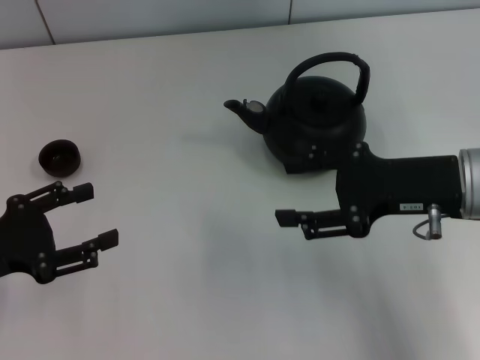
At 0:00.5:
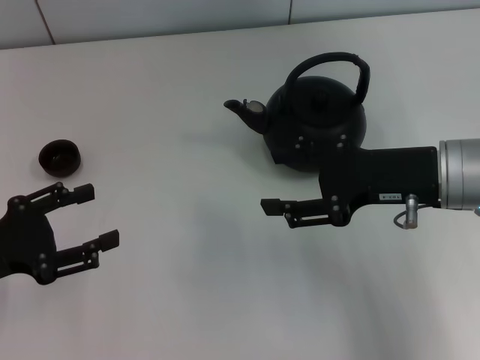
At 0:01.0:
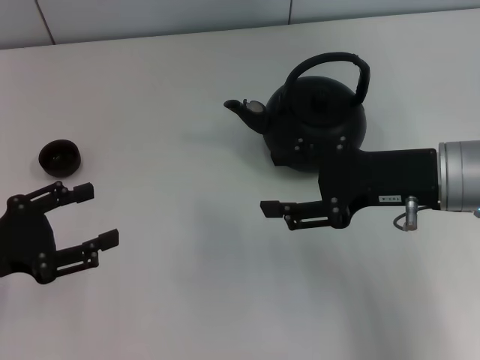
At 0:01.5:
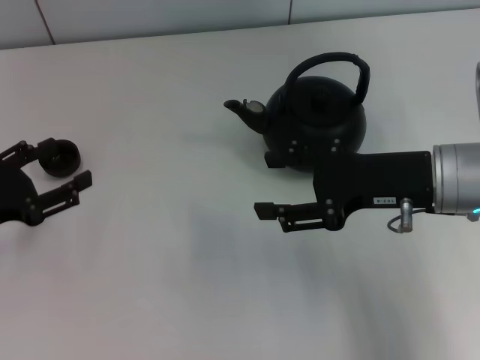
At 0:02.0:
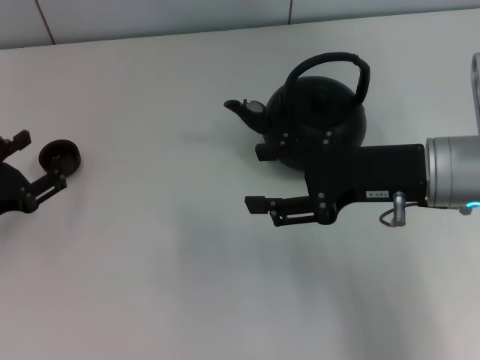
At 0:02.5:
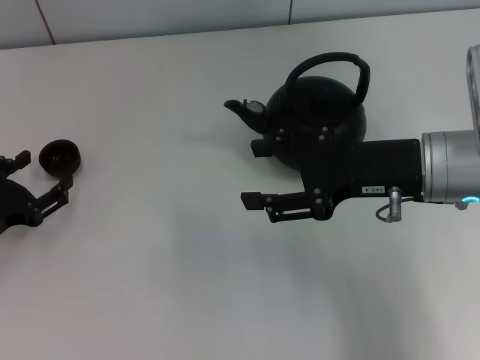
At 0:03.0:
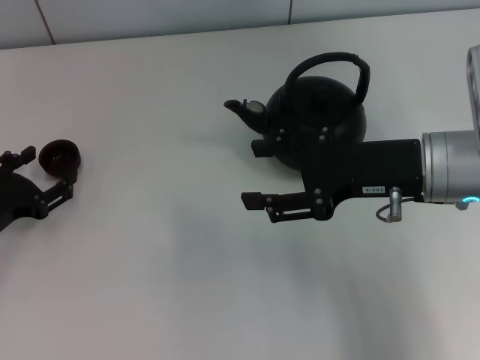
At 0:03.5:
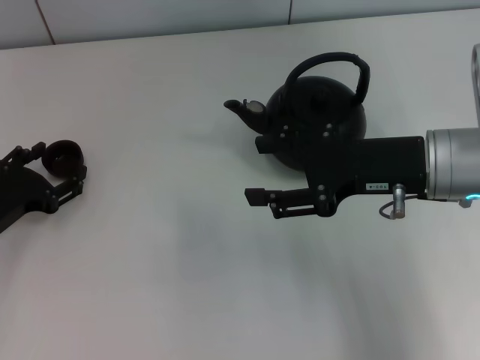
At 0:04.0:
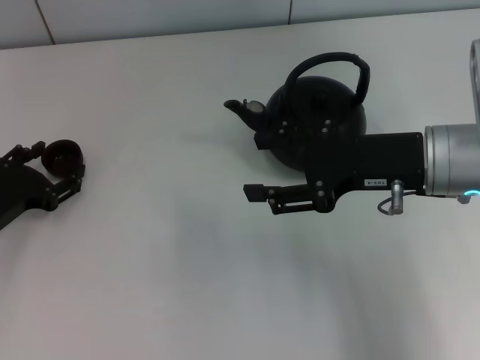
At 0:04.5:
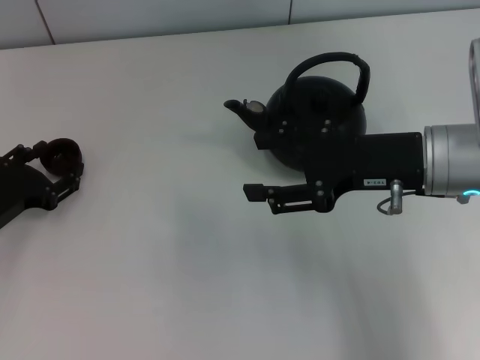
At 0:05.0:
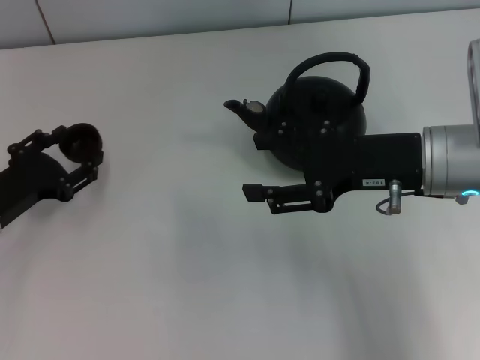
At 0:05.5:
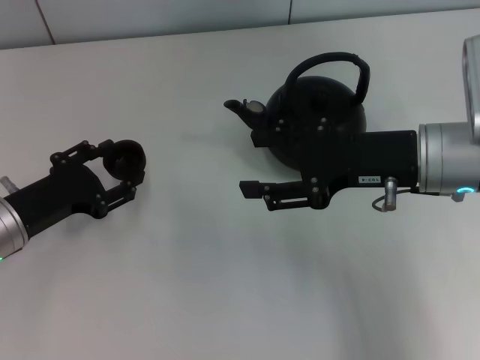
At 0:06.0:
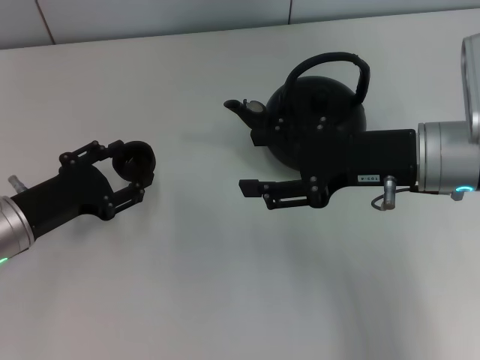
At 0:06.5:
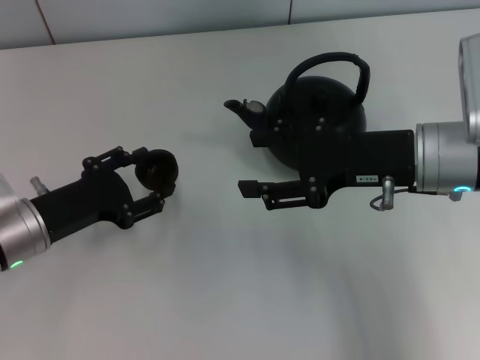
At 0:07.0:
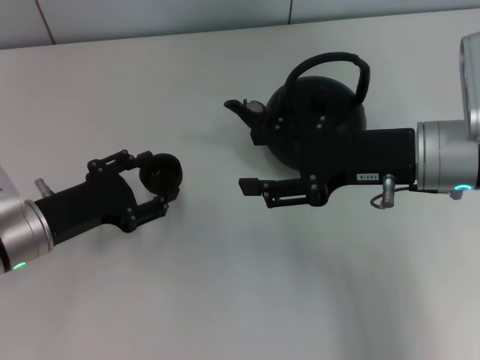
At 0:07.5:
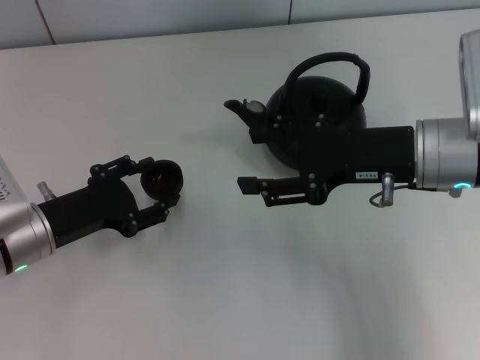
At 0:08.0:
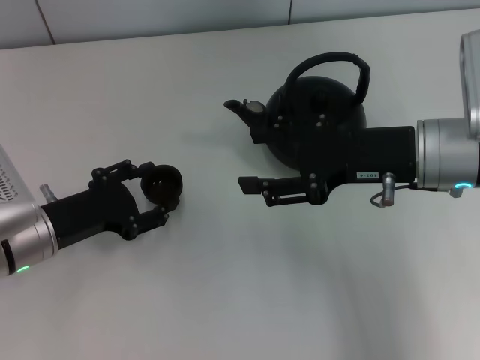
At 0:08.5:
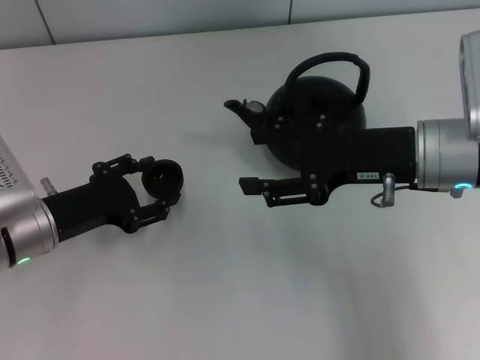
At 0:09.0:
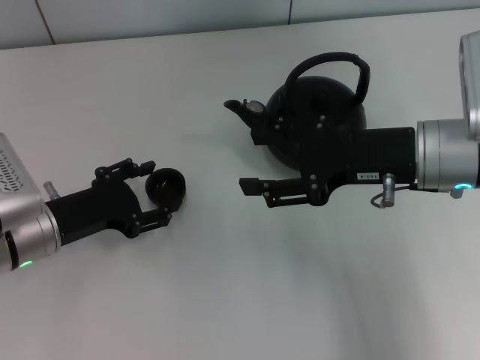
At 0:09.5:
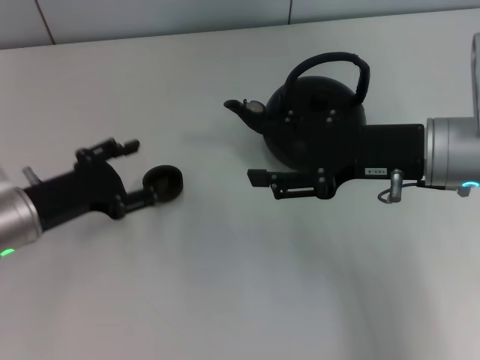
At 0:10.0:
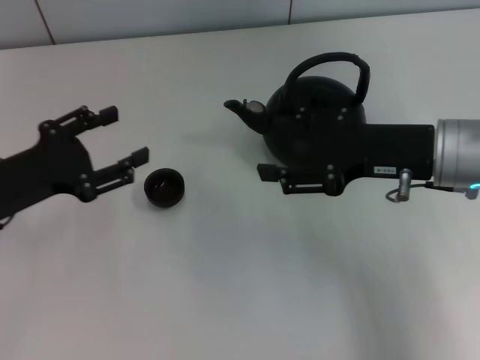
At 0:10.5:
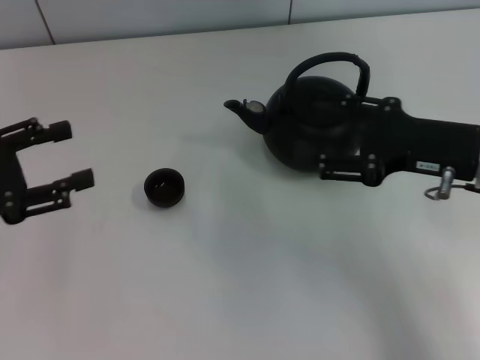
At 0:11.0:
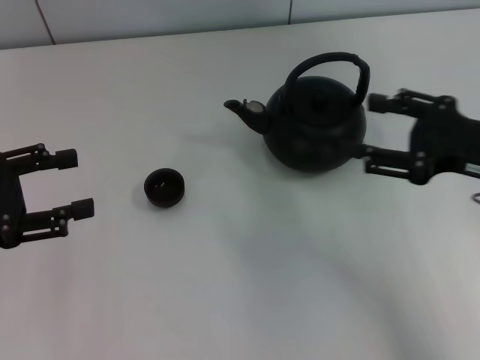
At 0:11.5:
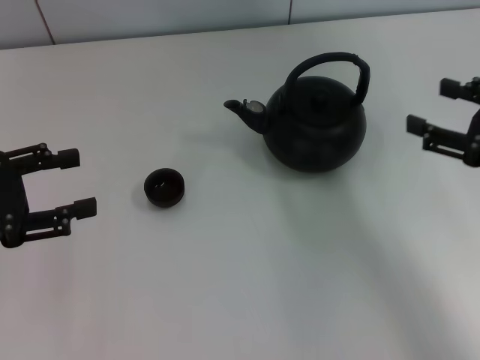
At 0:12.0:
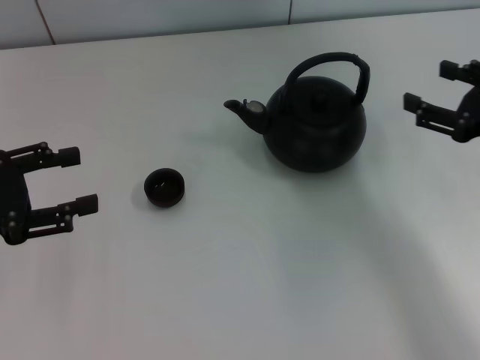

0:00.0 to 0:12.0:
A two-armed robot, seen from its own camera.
Task of the whole recording: Grasp the handle of the teapot with one hand and pour tea into the teacup.
Step, 0:00.0 to 0:05.5: Pick up the teacup with the left gripper.
Step, 0:06.0 to 0:10.0: Place the teacup in the center of view with the left gripper.
0:02.0 to 0:04.0: The grippers move only a little.
0:06.0 to 0:08.0: The grippers stay close to where they were, moving slightly.
0:08.0 to 0:10.0: The left gripper shifts roughly 5 cm upward.
0:10.0 to 0:12.0: The left gripper travels to the left by approximately 5 cm, while the right gripper shifts approximately 10 cm to the right.

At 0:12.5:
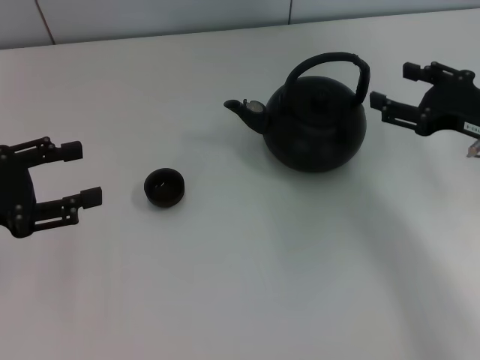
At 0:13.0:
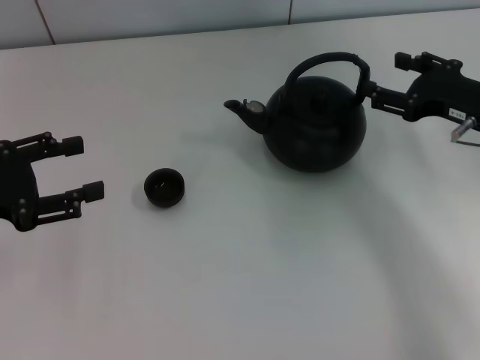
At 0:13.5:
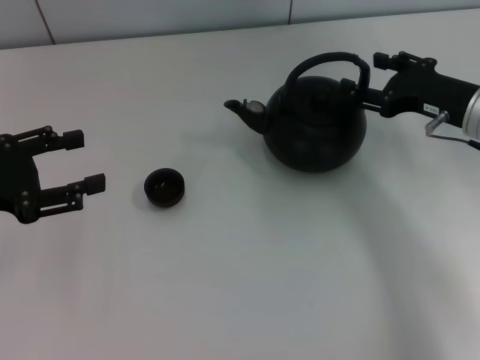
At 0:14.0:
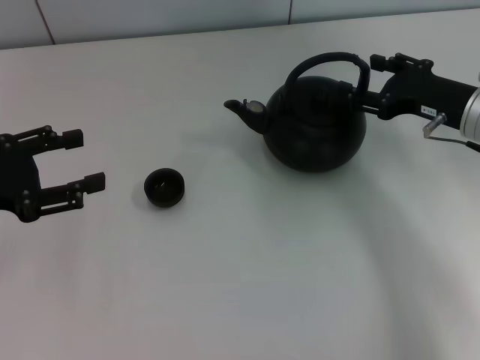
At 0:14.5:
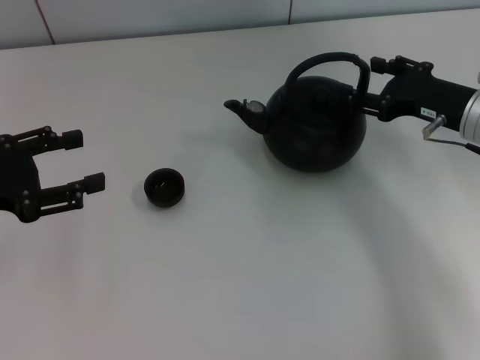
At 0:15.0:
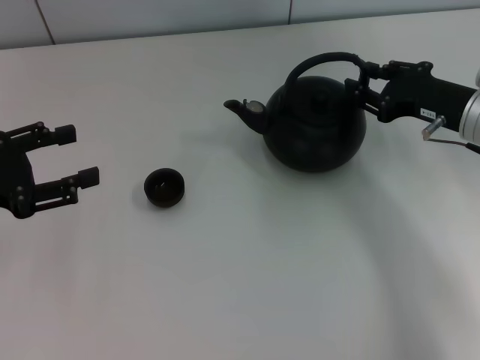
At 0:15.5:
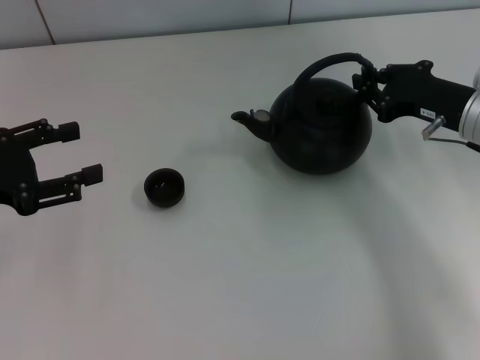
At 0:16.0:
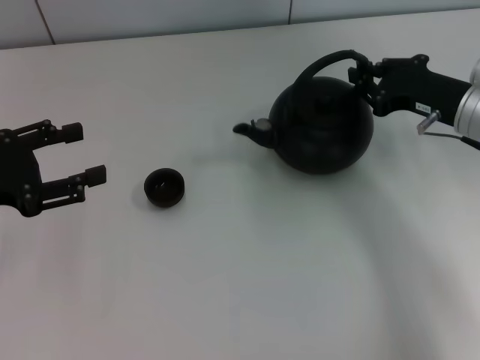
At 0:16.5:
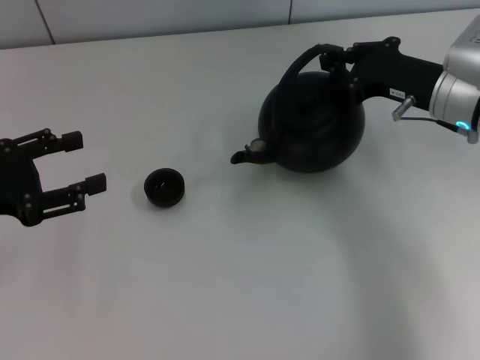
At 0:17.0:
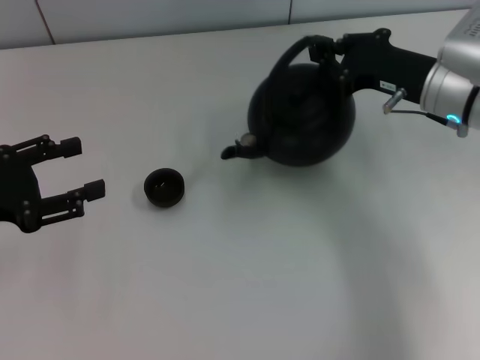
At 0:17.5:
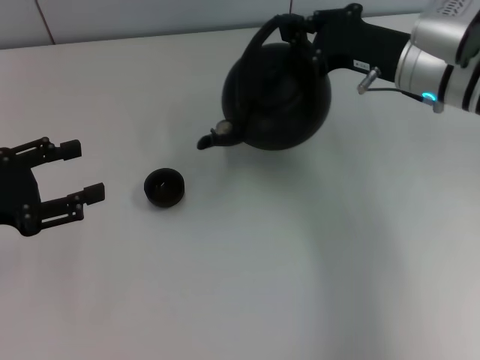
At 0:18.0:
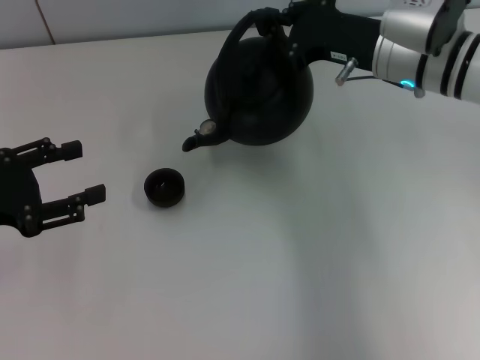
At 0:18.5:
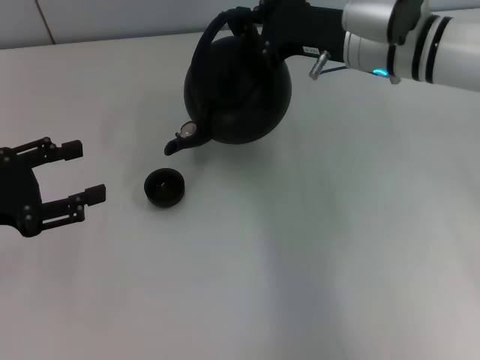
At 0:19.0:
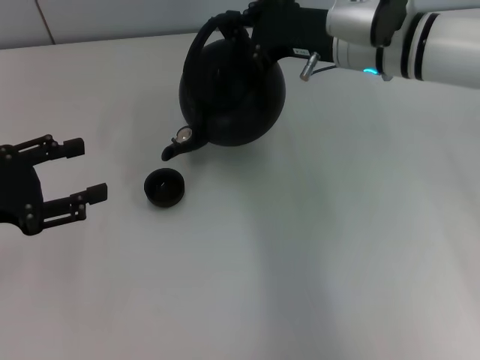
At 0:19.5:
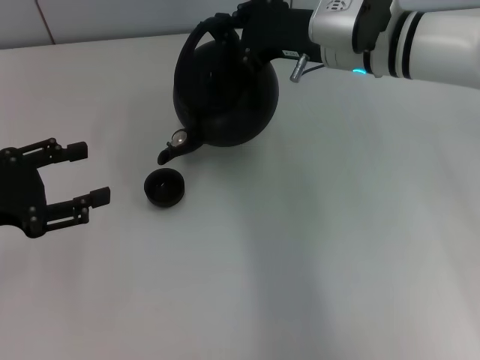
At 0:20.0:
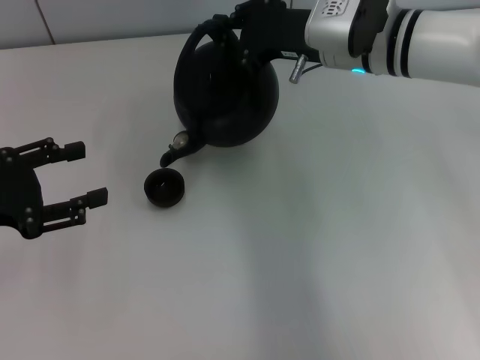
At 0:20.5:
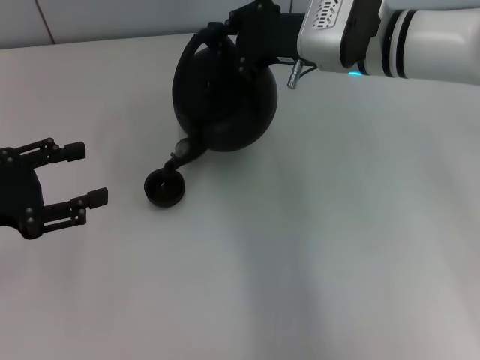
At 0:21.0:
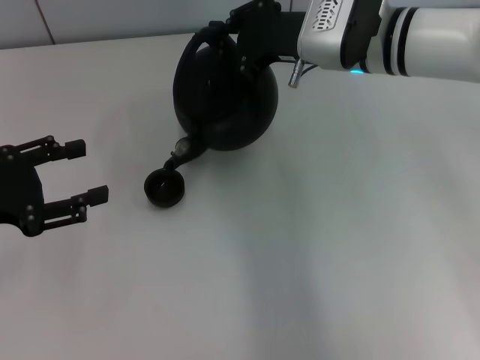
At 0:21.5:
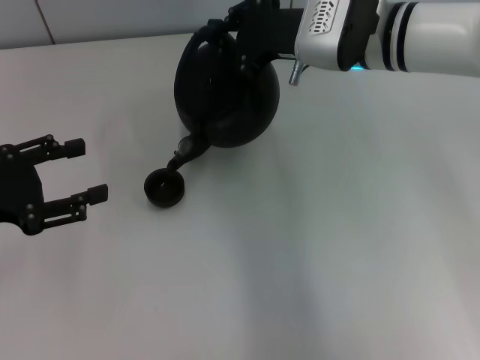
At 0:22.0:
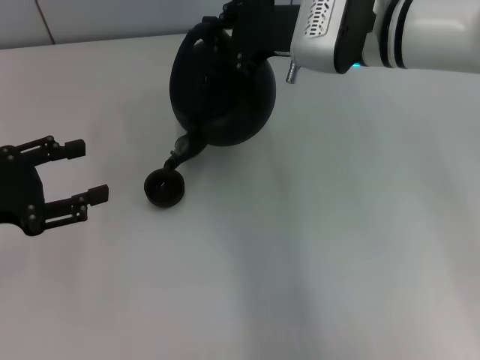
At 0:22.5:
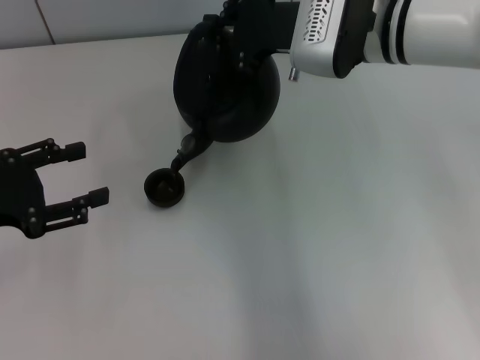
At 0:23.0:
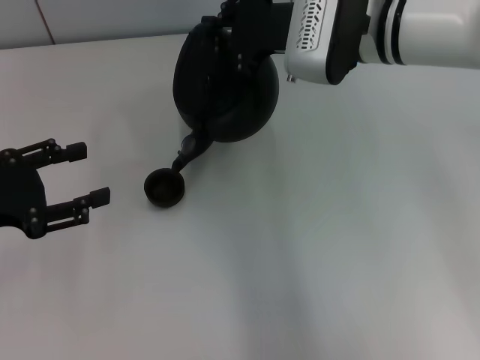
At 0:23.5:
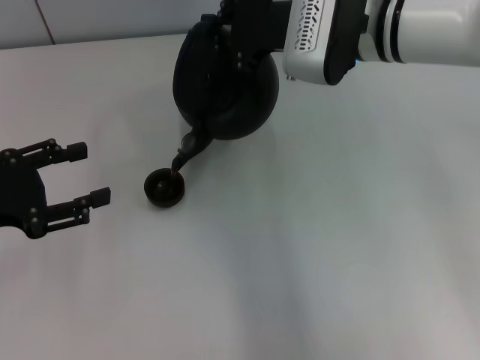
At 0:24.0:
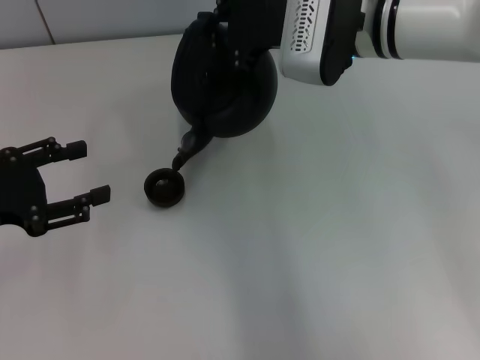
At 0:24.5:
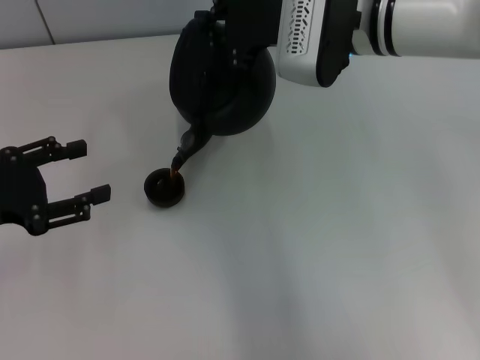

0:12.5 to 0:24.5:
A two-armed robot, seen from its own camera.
Task of the whole recording: Grasp the handle of the teapot with one hand and pour tea into the teacup.
Step, 0:12.5 to 0:16.5: Pick up the teapot with the right gripper.
0:12.5 to 0:14.5: The right gripper moves about 5 cm.
0:14.5 to 0:16.5: The right gripper closes up.
0:16.5 to 0:18.5: The right gripper moves to the left and forward, some 10 cm.
0:18.5 to 0:20.5: The grippers move only a little.
0:20.5 to 0:24.5: The grippers stay close to where they were, moving slightly.

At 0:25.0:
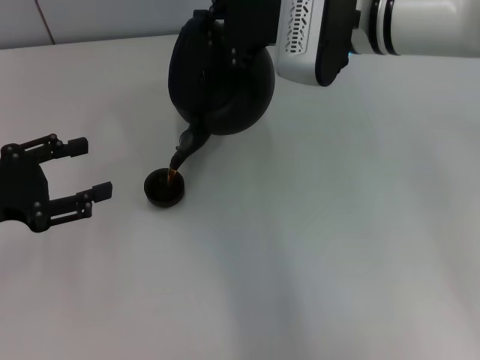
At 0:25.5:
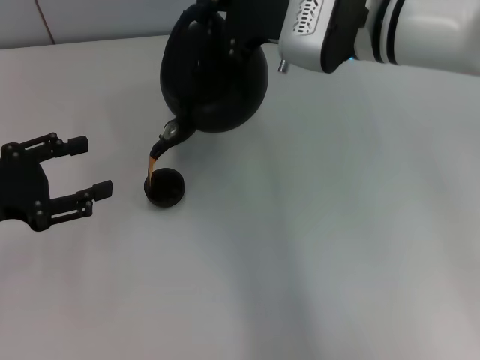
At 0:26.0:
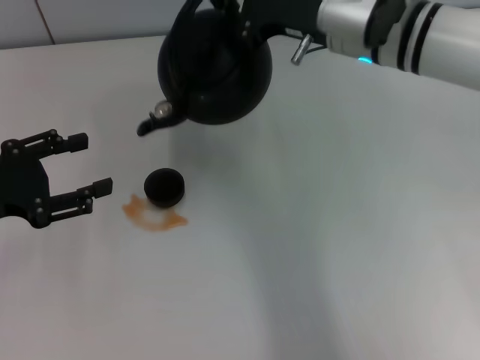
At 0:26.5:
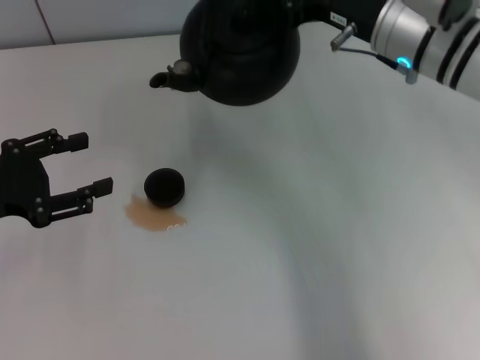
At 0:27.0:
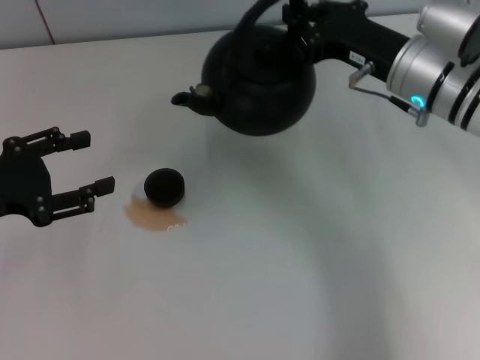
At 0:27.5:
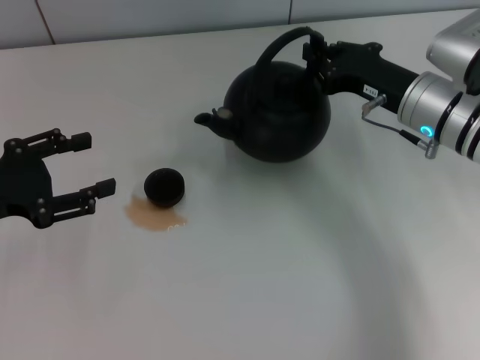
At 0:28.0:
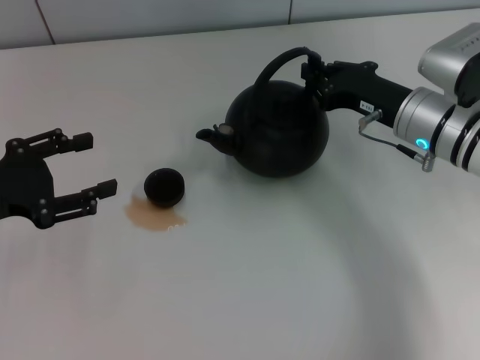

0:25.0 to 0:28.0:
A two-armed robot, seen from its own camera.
Task of the whole recording: Grasp the handle of the teapot with one hand and pour tea into the teacup.
0:25.0 to 0:26.5: The right gripper is displaced to the right by some 5 cm.
0:26.5 to 0:28.0: The right gripper shifts roughly 10 cm downward.
